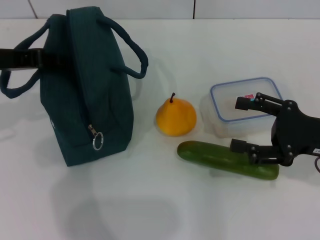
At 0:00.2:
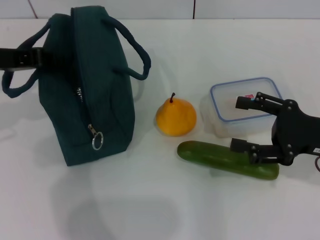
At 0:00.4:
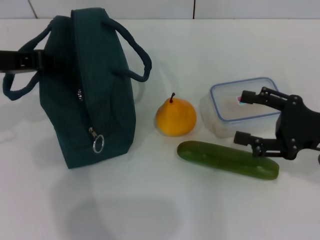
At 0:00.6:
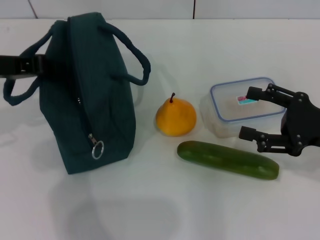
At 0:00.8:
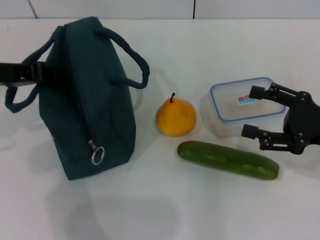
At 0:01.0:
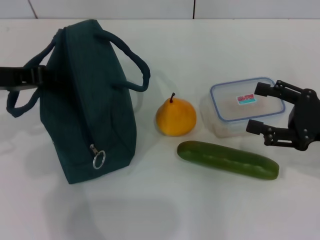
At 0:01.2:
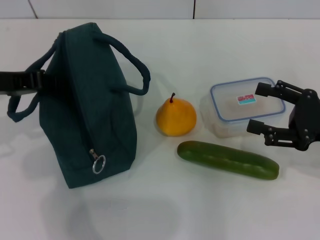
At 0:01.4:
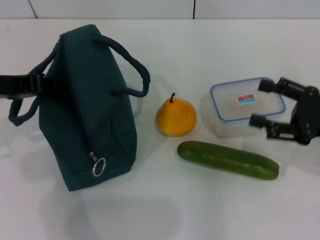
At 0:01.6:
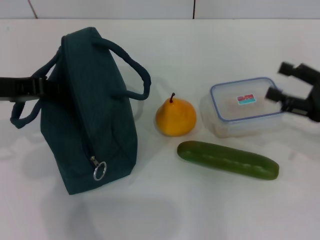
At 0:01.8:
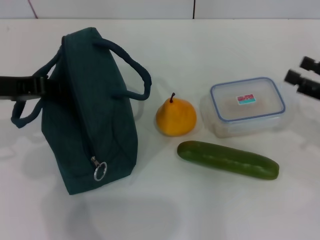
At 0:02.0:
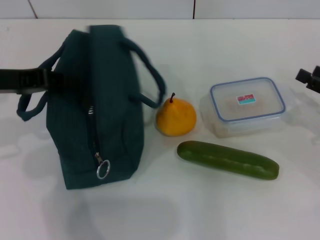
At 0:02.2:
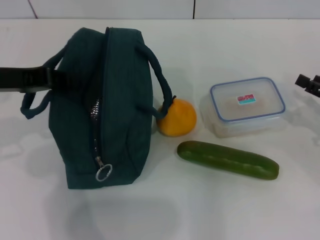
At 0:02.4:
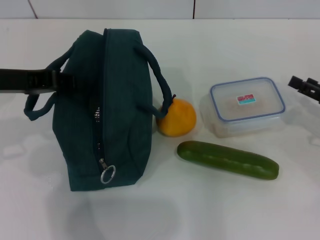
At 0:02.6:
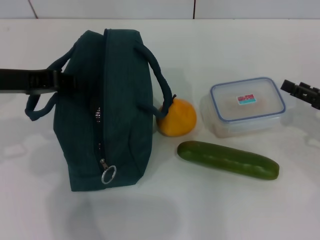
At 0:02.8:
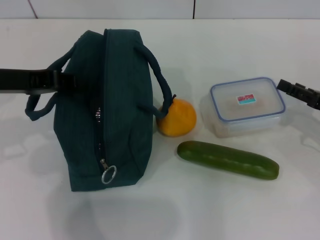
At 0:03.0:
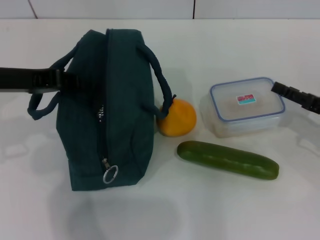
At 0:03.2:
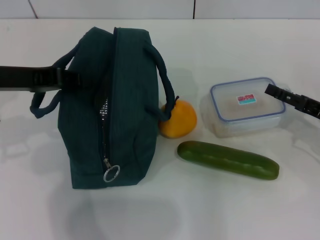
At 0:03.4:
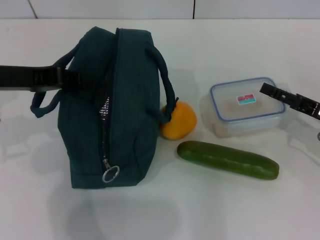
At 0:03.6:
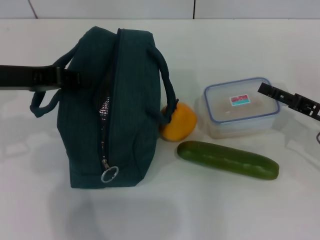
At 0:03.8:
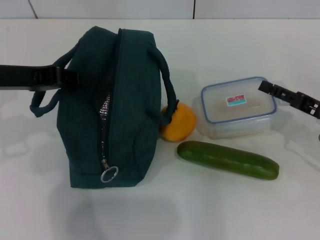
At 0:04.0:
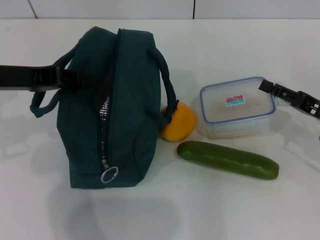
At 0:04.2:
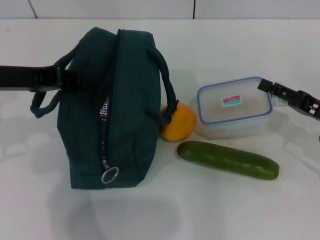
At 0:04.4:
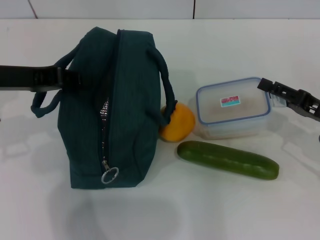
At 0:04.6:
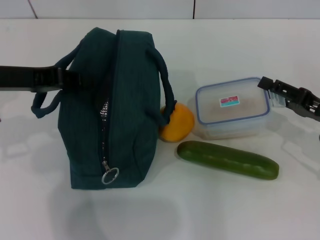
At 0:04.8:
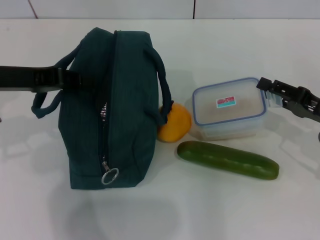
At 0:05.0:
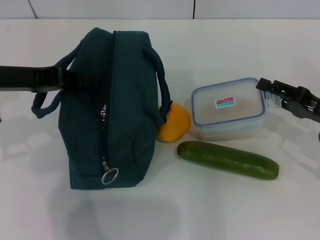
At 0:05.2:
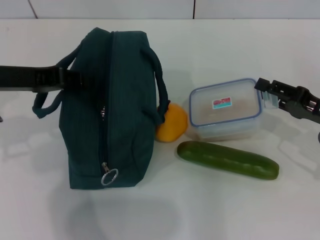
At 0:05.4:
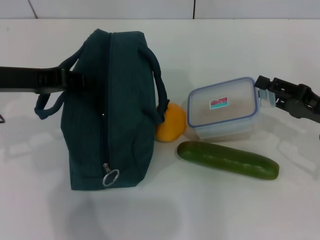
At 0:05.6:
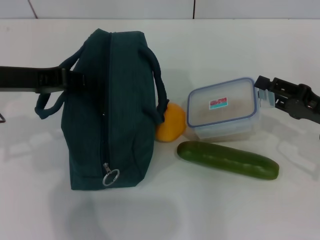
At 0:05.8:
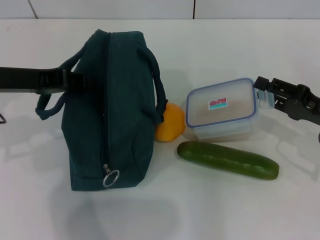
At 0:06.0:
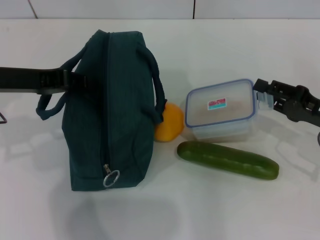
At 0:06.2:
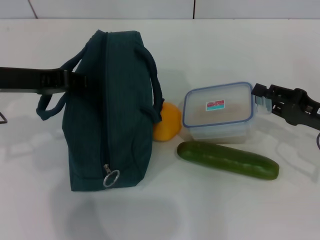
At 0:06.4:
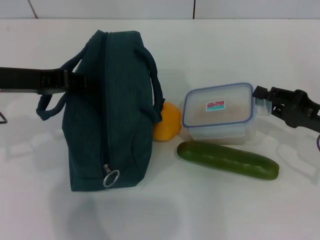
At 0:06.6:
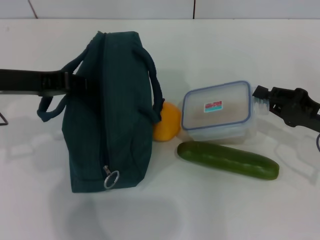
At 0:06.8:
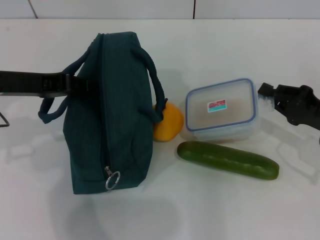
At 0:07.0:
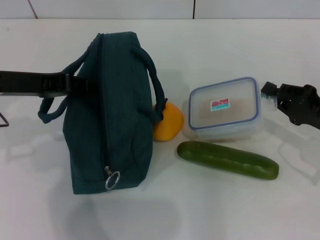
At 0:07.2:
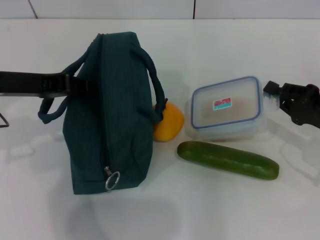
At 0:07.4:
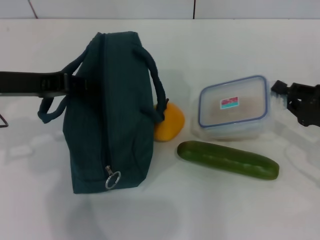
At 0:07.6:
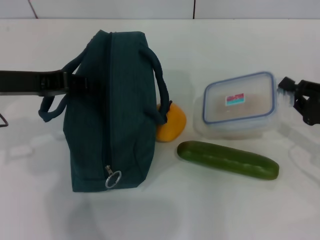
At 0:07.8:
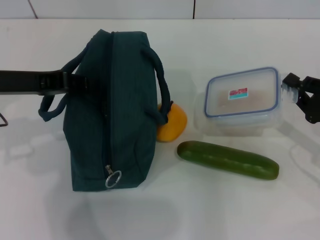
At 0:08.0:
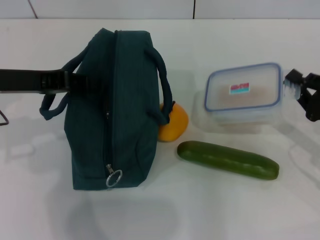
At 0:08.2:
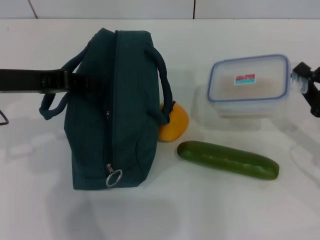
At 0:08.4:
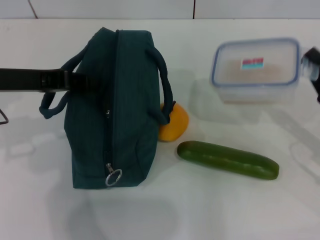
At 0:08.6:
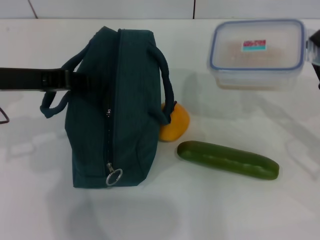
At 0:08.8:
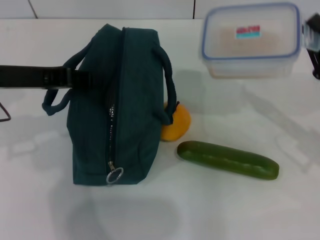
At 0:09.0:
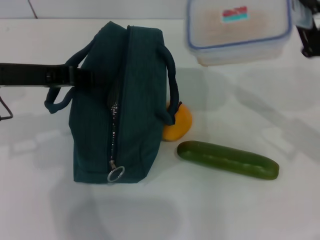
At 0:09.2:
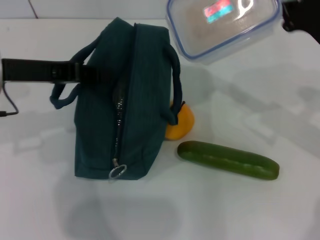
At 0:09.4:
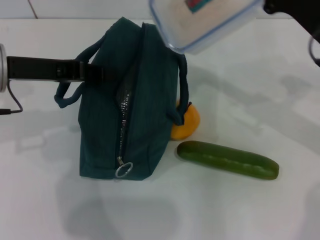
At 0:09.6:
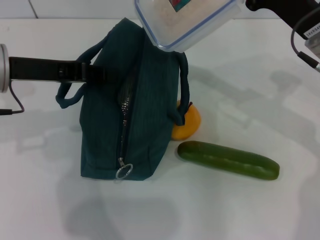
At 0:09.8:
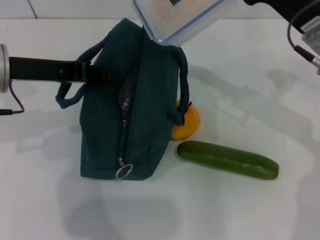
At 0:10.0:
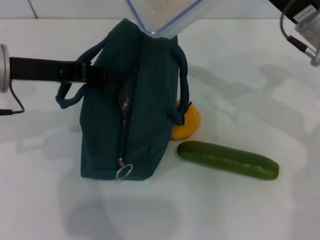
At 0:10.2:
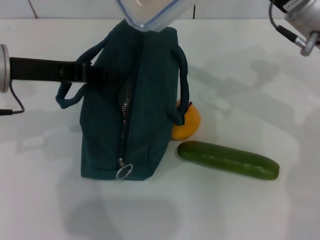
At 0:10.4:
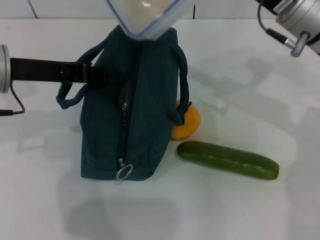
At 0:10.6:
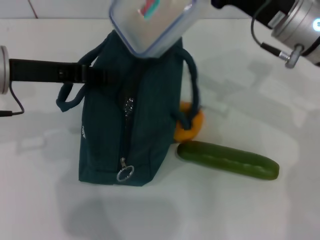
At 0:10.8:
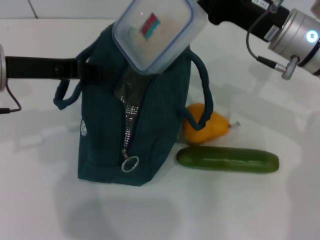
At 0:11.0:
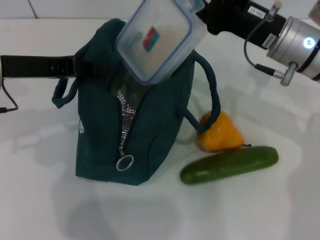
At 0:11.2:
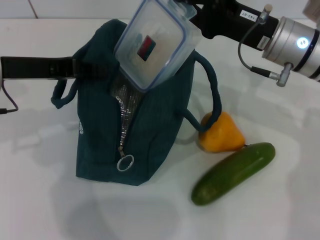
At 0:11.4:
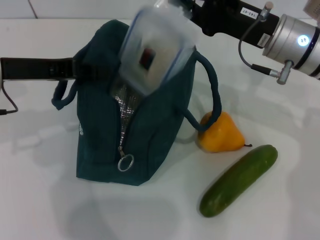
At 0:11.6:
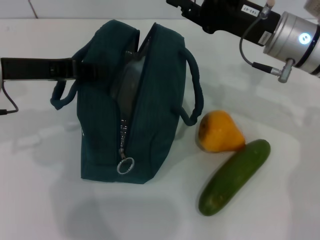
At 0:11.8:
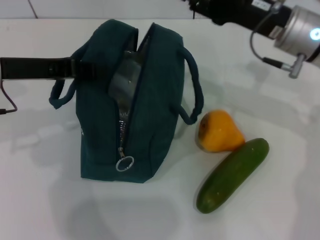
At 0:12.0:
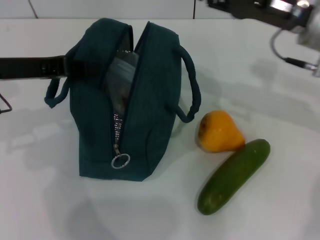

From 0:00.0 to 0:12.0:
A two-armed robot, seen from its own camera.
Step, from 0:00.4 to 0:07.0: Pick up the lunch box with your right hand.
From 0:00.0 to 0:01.6: The left gripper closes its fingers.
From 0:01.6 to 0:03.0: The right gripper ends up roughly 5 cm from where it was.
From 0:03.0 to 0:04.4: The grippers move only a little.
From 0:04.4 to 0:06.0: The grippers stay close to where they were, moving slightly.
From 0:06.0 to 0:07.6: The right gripper closes its fingers.
From 0:07.6 to 0:09.0: The right gripper travels upward by approximately 5 cm.
From 0:09.0 to 0:10.4: The right gripper heads to the left, forward and upward, covering approximately 15 cm.
From 0:10.4 to 0:12.0: The right gripper opens.

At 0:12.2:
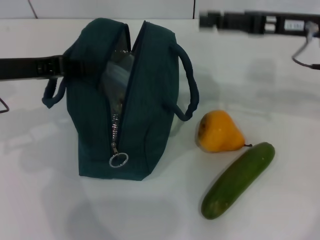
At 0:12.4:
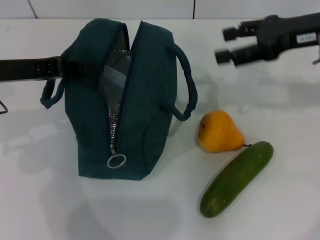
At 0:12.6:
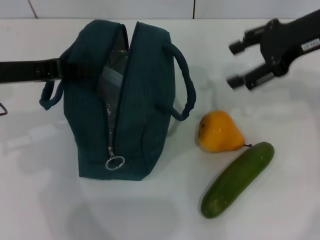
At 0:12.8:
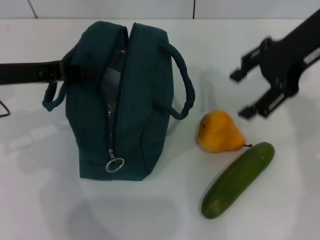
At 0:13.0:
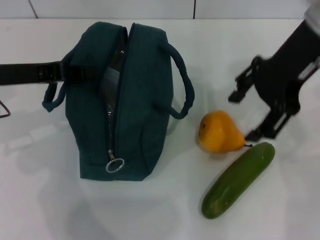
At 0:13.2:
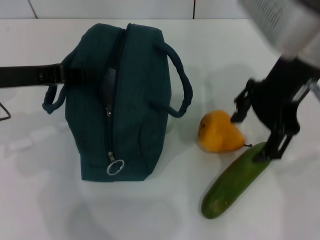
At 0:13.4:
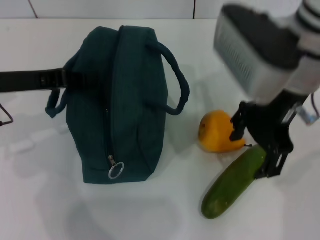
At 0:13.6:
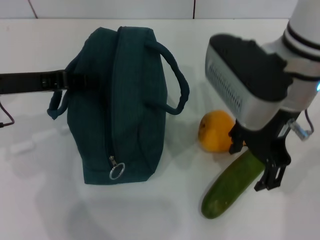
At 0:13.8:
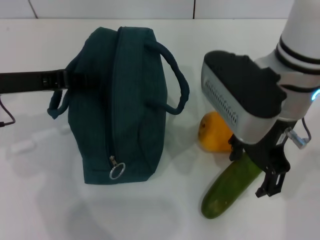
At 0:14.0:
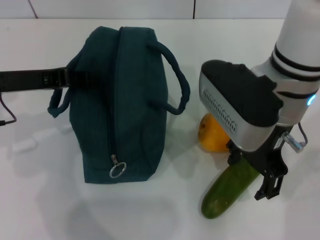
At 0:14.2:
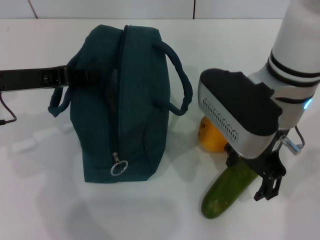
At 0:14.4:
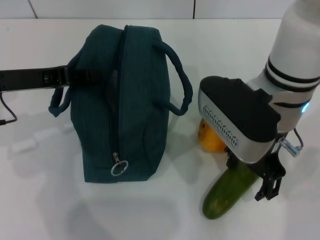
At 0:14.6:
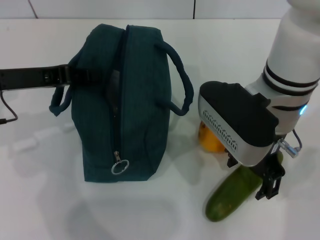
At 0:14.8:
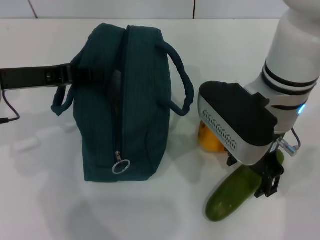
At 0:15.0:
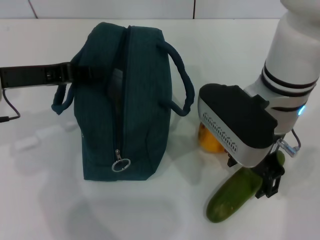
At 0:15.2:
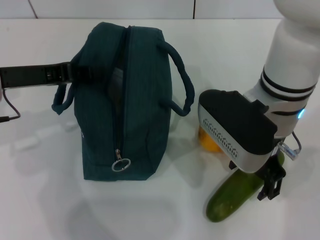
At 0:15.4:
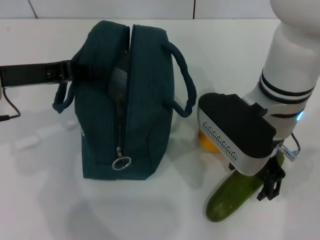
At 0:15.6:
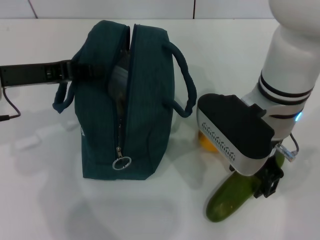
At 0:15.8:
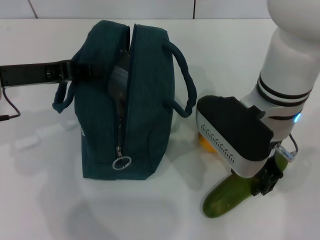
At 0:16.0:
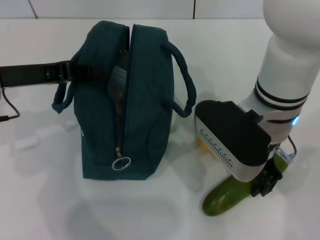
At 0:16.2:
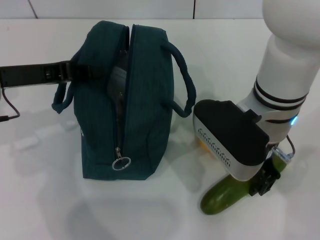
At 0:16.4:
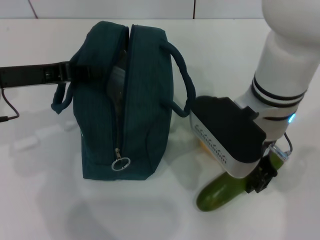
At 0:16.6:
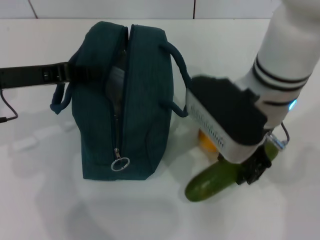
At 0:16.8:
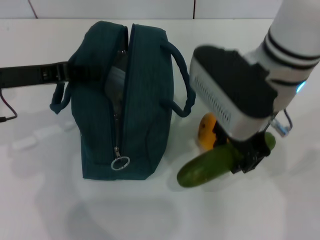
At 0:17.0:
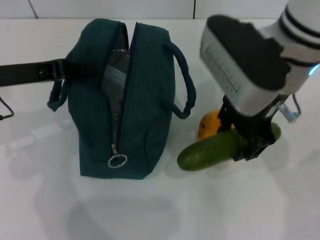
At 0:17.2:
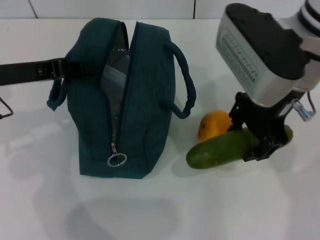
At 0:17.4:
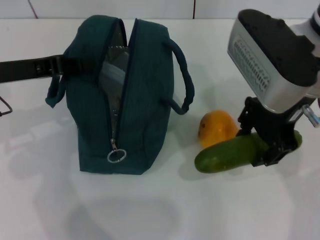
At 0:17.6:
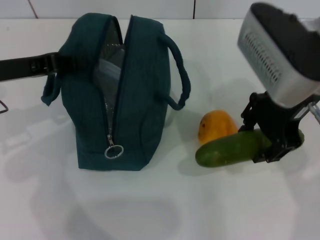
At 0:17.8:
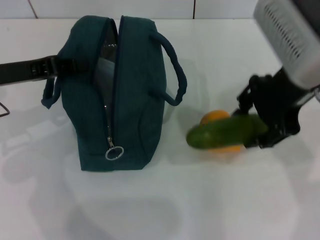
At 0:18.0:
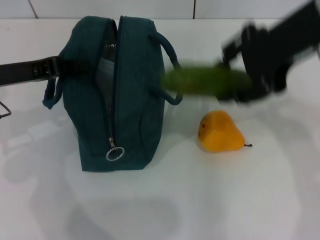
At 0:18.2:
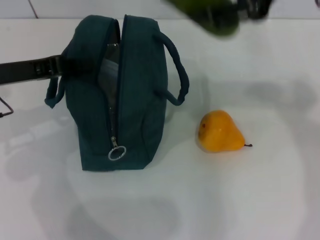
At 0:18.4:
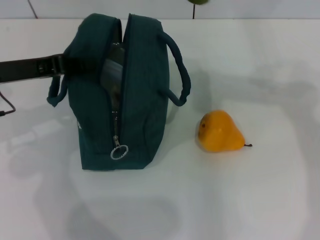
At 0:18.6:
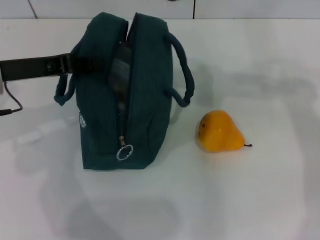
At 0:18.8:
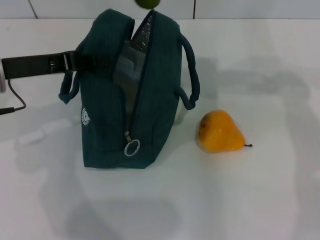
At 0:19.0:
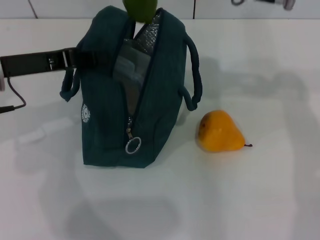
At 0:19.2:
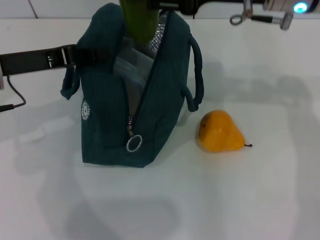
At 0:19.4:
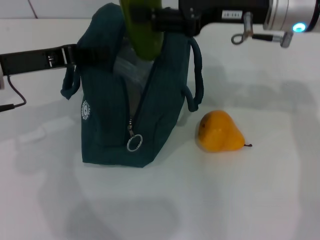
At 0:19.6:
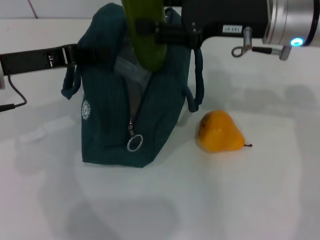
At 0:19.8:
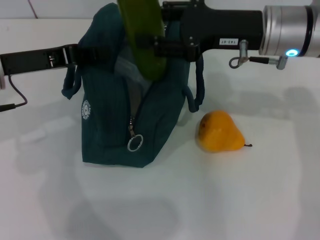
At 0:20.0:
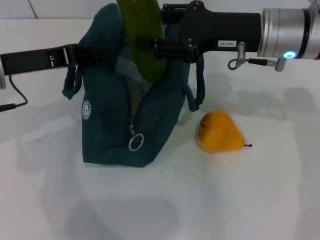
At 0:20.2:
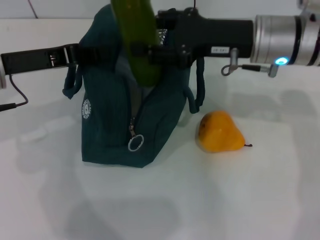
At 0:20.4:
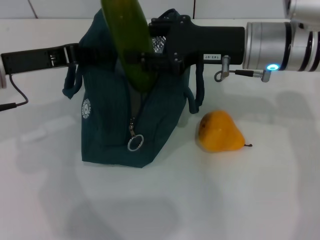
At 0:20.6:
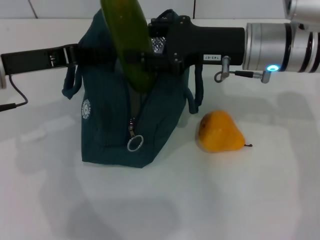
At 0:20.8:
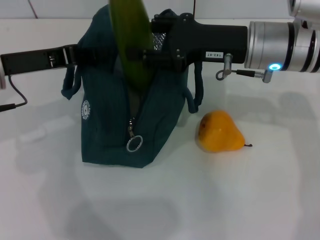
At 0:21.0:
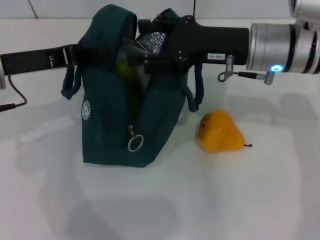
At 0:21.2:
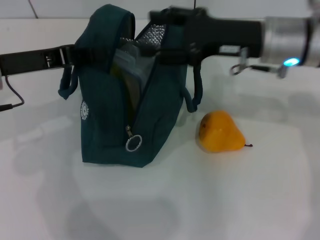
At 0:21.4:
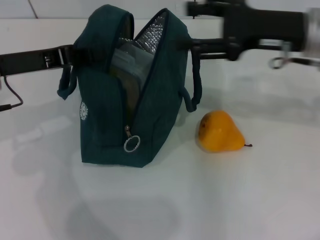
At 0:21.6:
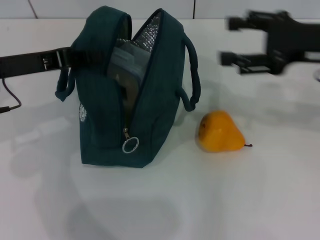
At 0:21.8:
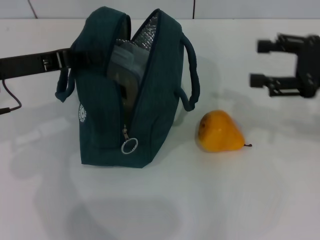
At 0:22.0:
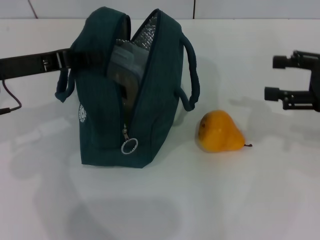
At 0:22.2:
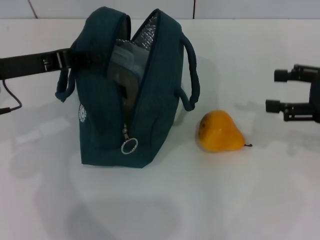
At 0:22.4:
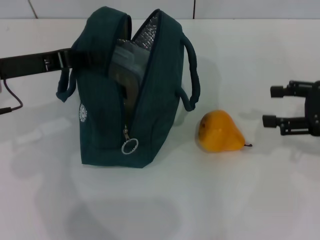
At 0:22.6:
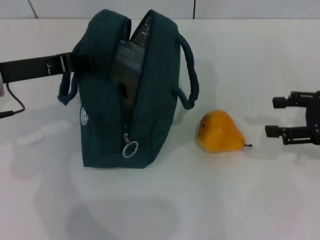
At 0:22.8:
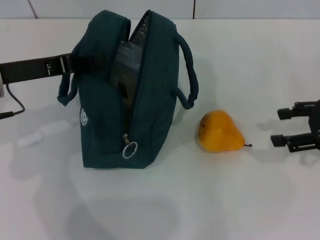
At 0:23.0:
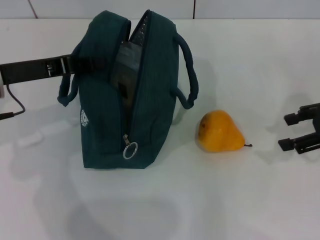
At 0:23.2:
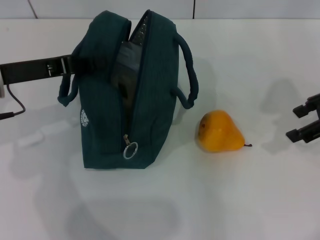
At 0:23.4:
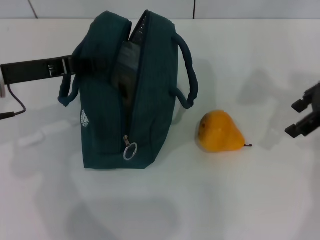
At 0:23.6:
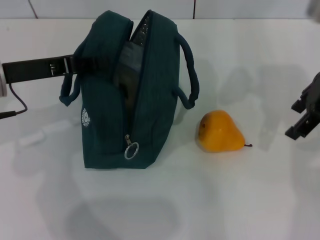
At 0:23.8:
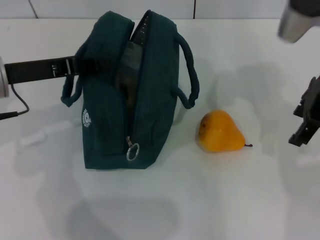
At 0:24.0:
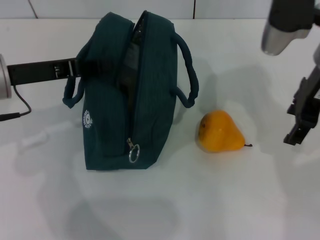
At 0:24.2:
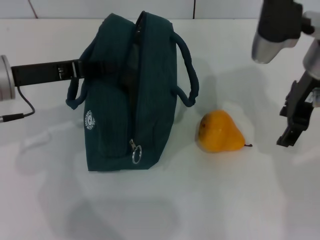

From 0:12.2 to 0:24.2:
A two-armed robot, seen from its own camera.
Step, from 0:12.4 to 0:16.0: Pick up the cucumber with your right hand.
Step, from 0:16.2 to 0:20.8: Put the cucumber into the lunch bag with your right hand.
From 0:12.2 to 0:13.8: The right gripper is displaced to the left and backward by roughly 15 cm.
From 0:15.2 to 0:16.6: The grippers make only small movements.
From 0:16.6 to 0:18.2: The right gripper shifts some 20 cm upward and to the right.
From 0:18.2 to 0:19.8: The right gripper is displaced downward by some 15 cm.
From 0:19.8 to 0:21.2: The grippers stay close to where they were, moving slightly.
From 0:21.2 to 0:22.6: The right gripper travels to the right and backward by roughly 20 cm.
From 0:22.6 to 0:24.2: The right gripper heads to the left, forward and upward, covering approximately 20 cm.
